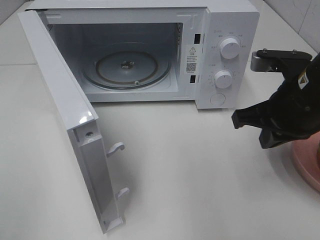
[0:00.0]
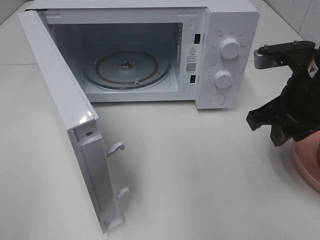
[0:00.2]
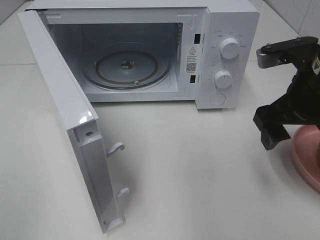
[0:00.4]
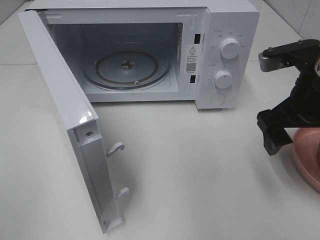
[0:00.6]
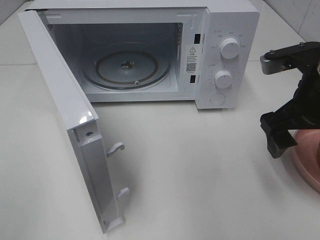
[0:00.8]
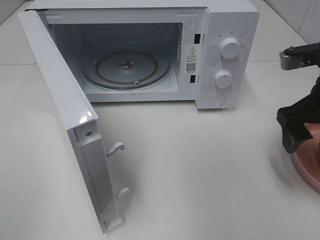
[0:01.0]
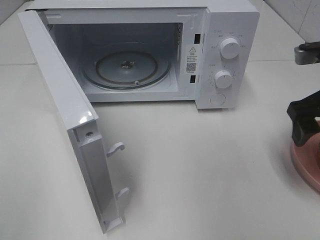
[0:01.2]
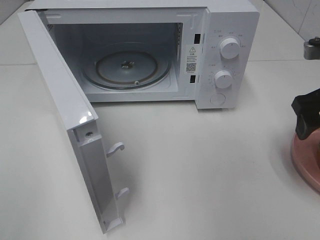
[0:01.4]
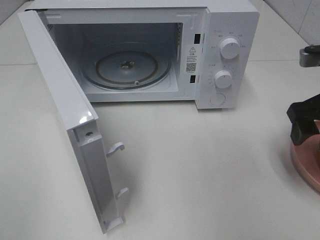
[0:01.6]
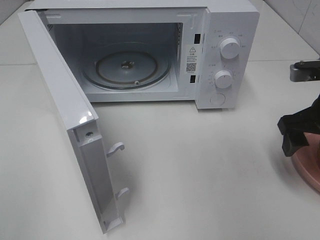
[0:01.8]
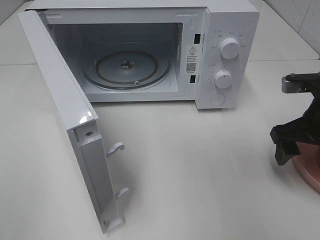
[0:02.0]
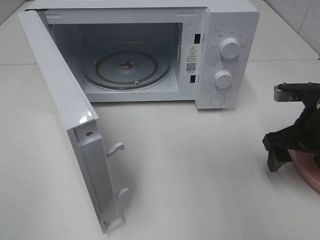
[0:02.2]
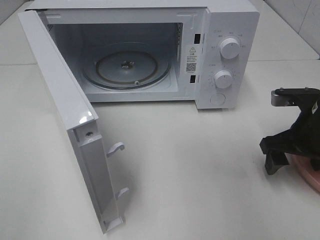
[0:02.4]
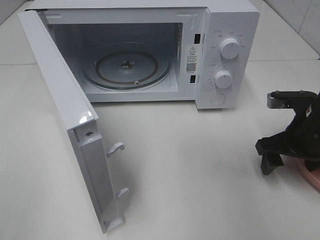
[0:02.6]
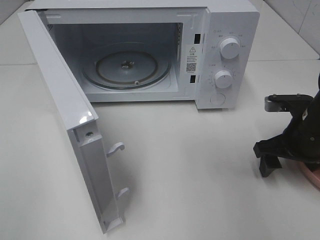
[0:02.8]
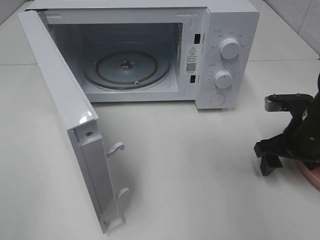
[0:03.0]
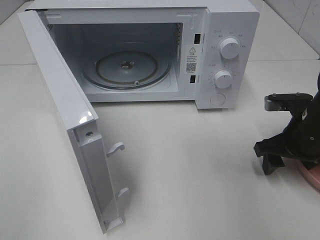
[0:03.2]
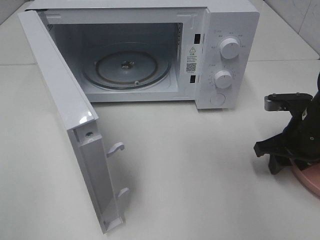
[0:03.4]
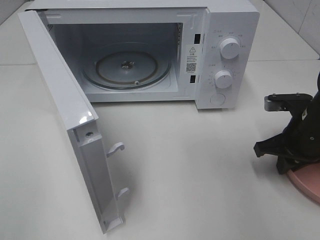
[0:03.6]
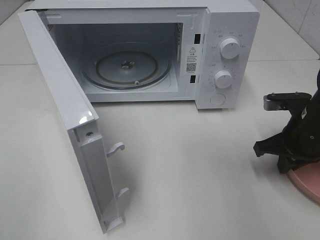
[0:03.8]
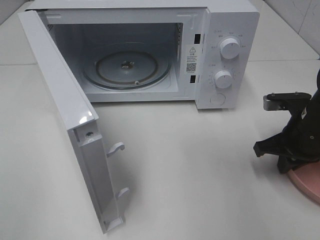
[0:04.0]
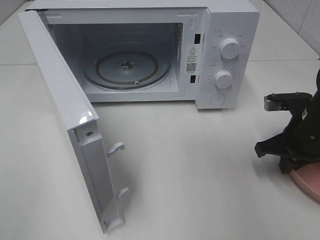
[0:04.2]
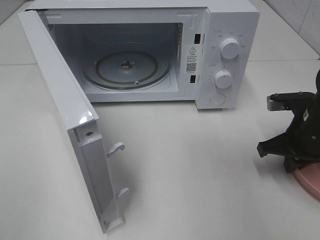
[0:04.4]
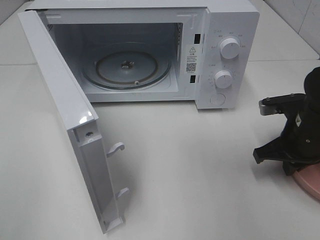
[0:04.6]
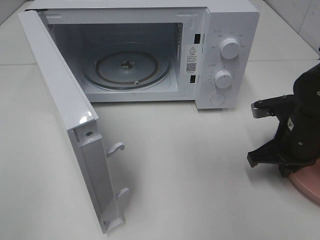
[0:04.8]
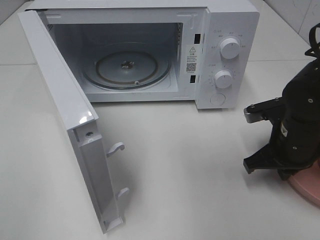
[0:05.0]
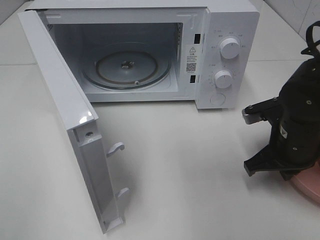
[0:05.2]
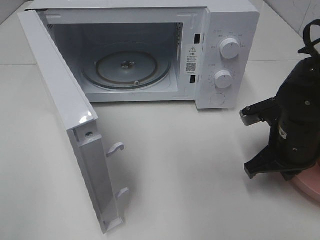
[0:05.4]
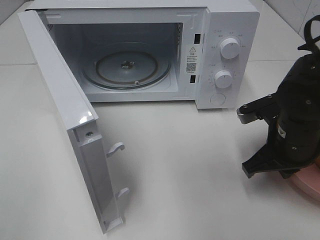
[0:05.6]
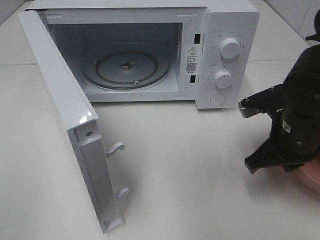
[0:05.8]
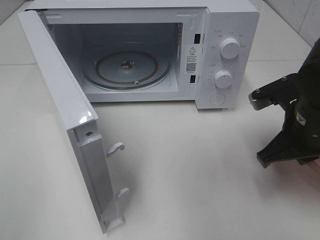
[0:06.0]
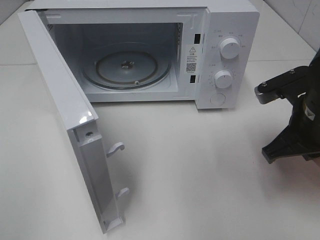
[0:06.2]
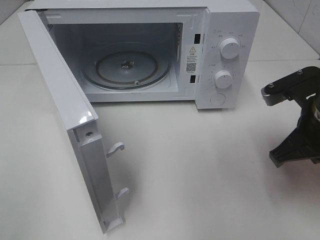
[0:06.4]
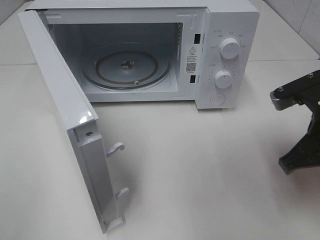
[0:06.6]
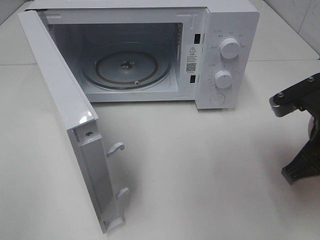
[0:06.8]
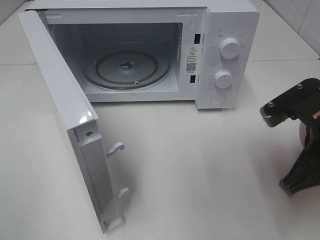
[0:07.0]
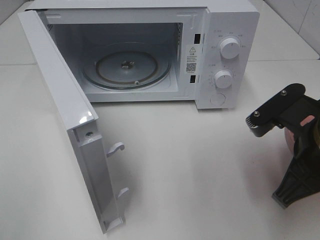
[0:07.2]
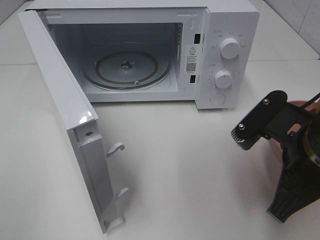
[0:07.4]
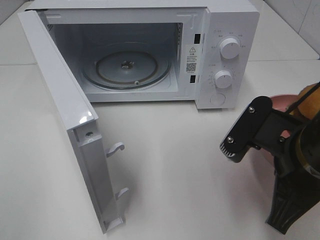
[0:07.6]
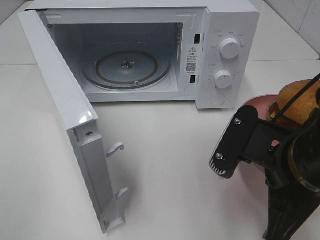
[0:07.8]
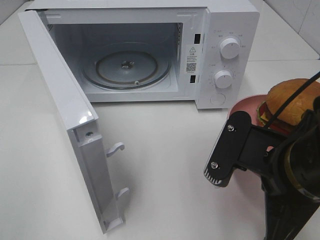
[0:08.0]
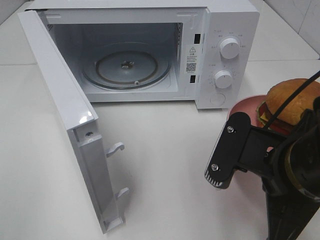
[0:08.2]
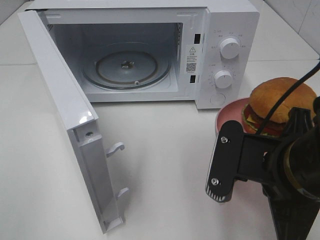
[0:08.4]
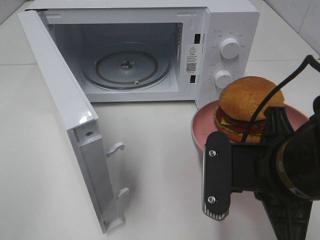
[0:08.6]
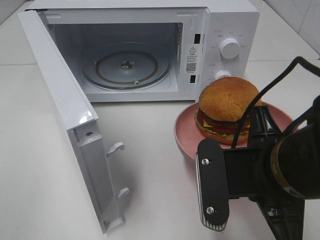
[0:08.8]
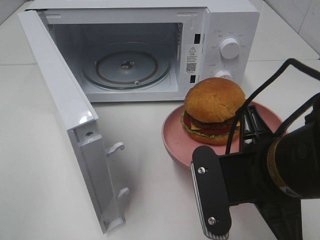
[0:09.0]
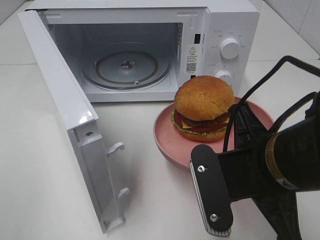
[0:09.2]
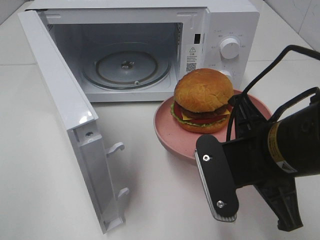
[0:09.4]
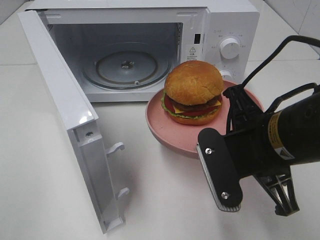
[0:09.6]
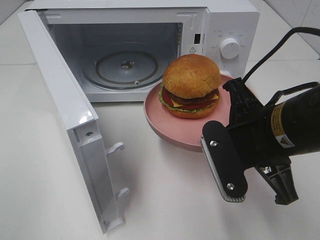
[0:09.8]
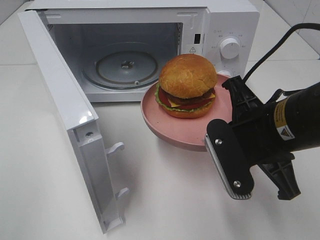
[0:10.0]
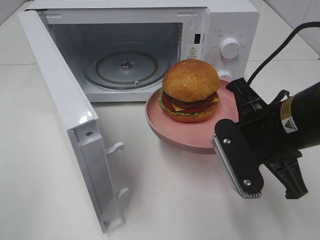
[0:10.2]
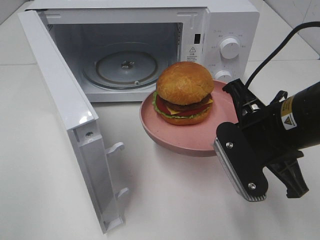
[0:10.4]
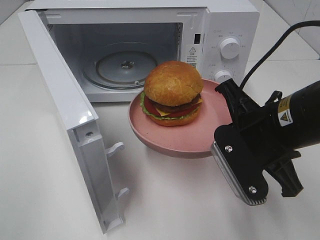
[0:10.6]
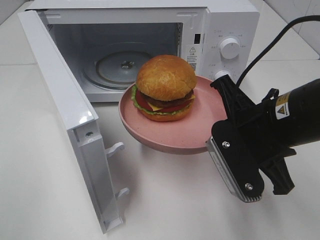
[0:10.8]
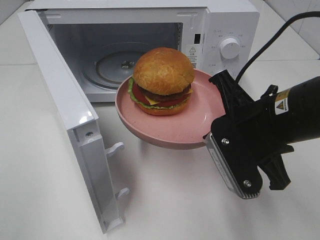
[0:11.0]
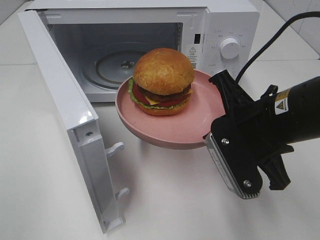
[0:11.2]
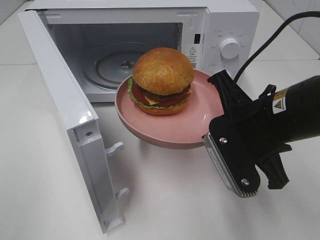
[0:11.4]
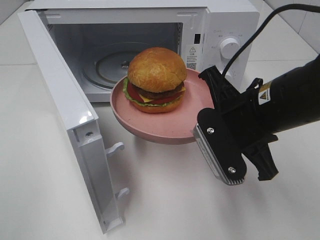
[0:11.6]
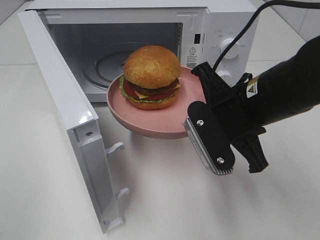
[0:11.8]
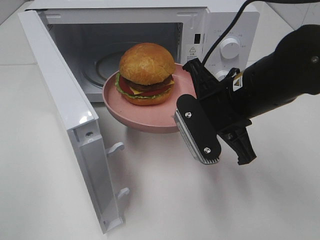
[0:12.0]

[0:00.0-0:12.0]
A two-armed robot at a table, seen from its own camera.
Task of the whole recording: Heat the burger.
Step, 0:00.0 to 0:03.8: Right hand: grab the plate with the hamburger.
0:00.0 to 0:01.6: The right gripper shifts some 10 cm to the right, and opens up.
0:01.6 to 0:03.0: The right gripper goes roughly 10 cm downward.
0:03.0 to 0:04.4: The right gripper closes its fingers.
0:04.4 to 0:06.0: The right gripper moves upward and to the left, approximately 10 cm.
0:06.0 to 0:07.6: The right gripper heads backward and to the left, covering some 10 cm.
0:09.0 to 0:10.4: The right gripper heads forward, covering some 5 cm.
0:10.4 to 0:12.0: The right gripper ends up approximately 5 cm from where it was.

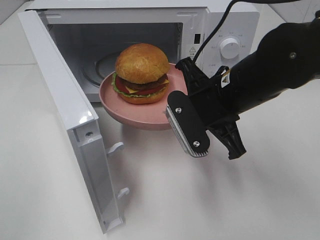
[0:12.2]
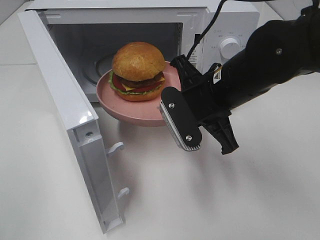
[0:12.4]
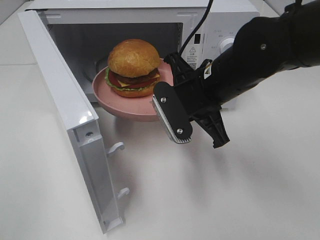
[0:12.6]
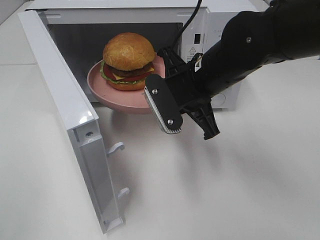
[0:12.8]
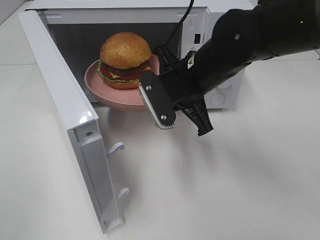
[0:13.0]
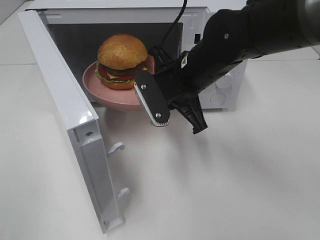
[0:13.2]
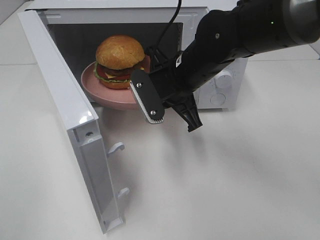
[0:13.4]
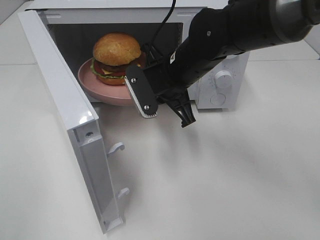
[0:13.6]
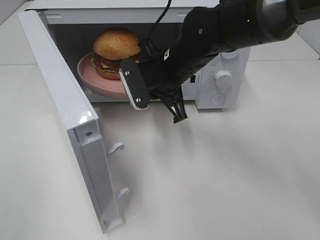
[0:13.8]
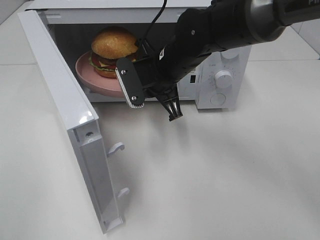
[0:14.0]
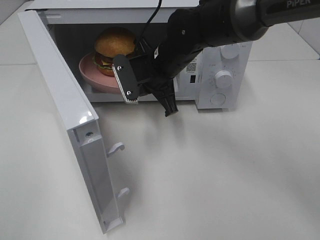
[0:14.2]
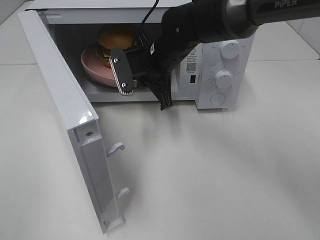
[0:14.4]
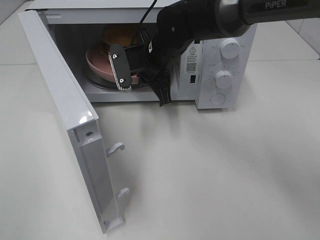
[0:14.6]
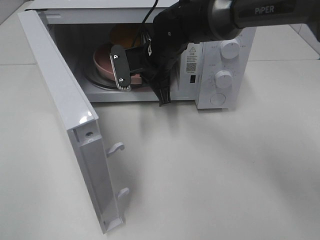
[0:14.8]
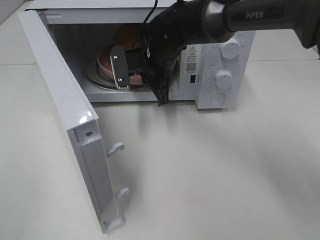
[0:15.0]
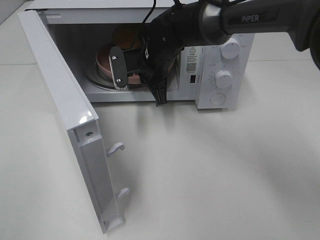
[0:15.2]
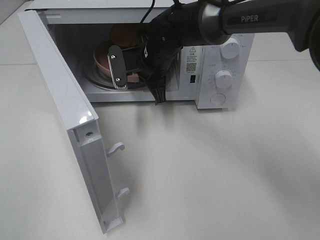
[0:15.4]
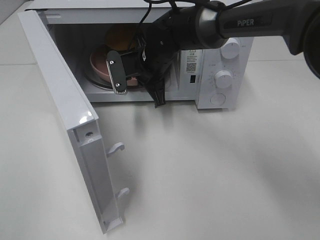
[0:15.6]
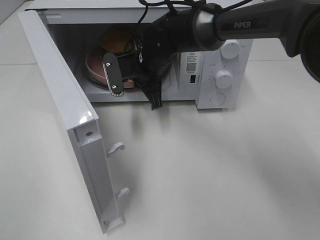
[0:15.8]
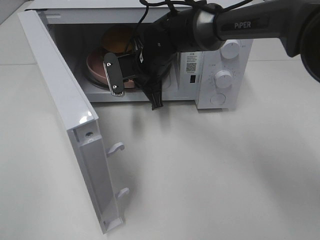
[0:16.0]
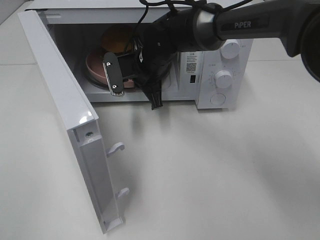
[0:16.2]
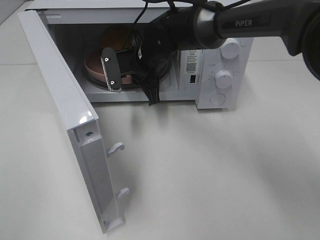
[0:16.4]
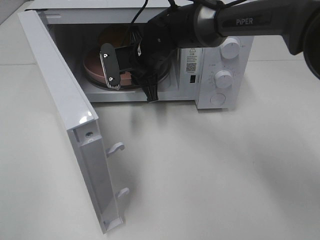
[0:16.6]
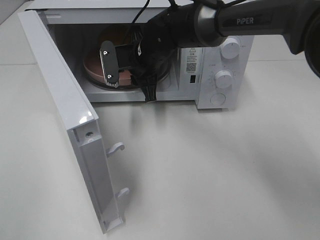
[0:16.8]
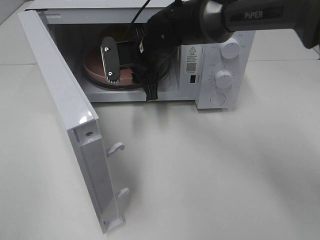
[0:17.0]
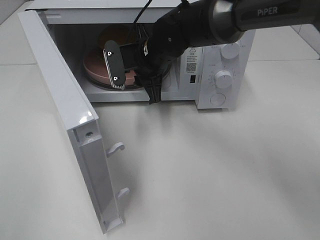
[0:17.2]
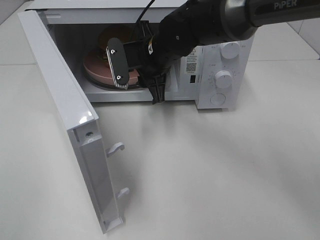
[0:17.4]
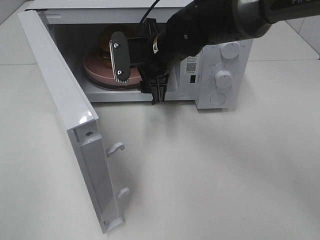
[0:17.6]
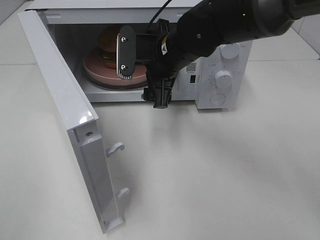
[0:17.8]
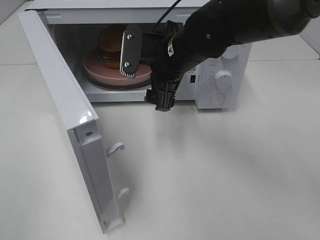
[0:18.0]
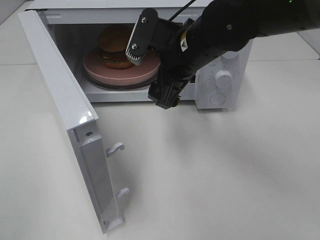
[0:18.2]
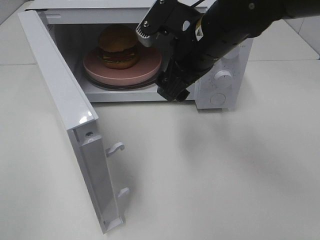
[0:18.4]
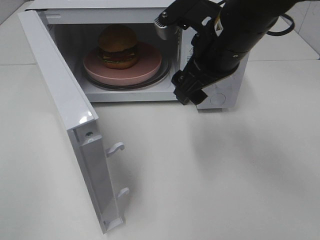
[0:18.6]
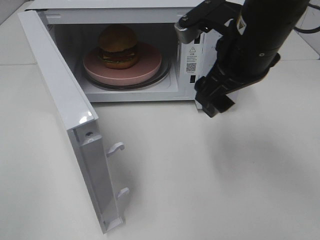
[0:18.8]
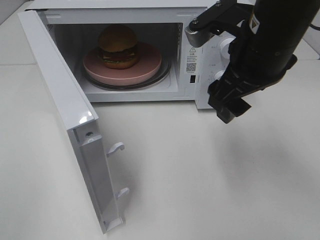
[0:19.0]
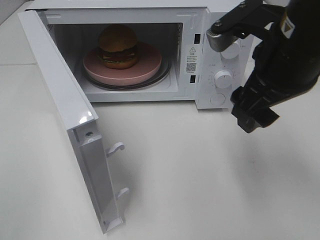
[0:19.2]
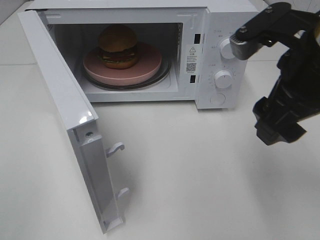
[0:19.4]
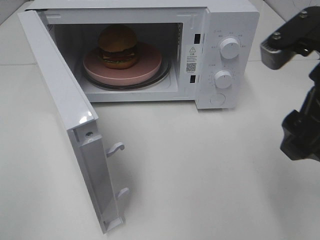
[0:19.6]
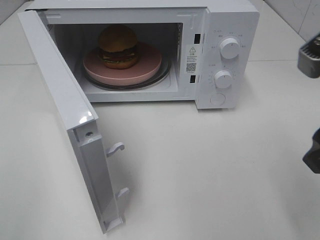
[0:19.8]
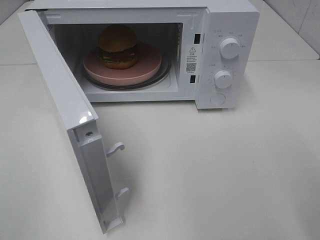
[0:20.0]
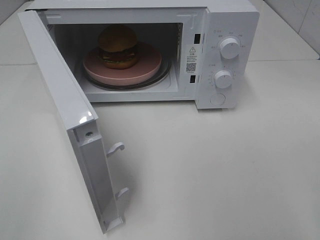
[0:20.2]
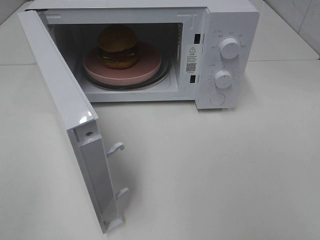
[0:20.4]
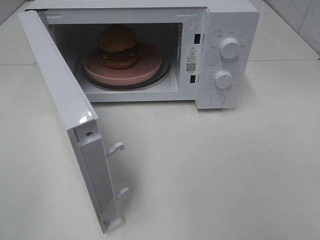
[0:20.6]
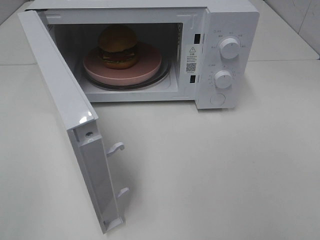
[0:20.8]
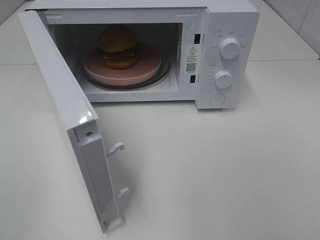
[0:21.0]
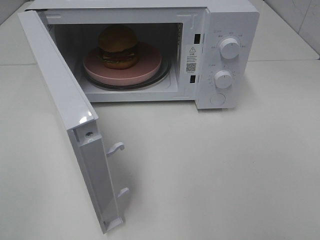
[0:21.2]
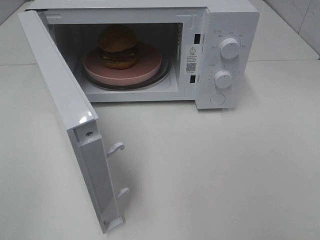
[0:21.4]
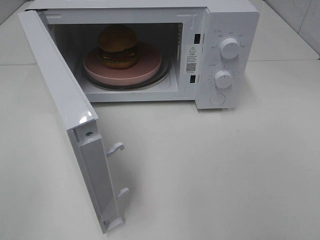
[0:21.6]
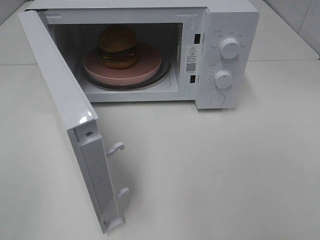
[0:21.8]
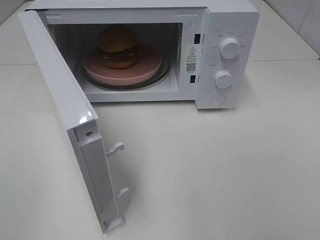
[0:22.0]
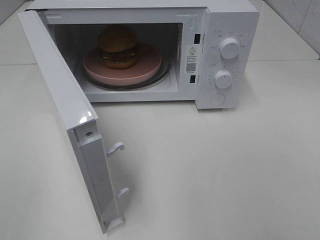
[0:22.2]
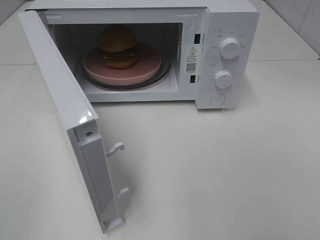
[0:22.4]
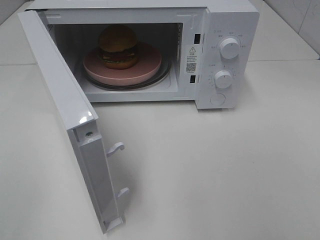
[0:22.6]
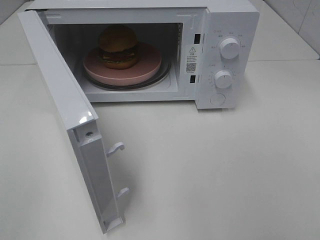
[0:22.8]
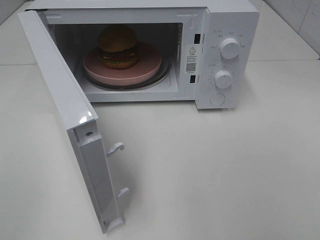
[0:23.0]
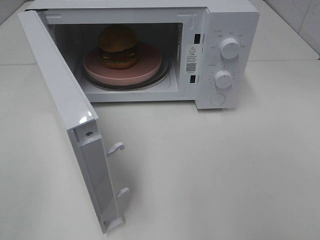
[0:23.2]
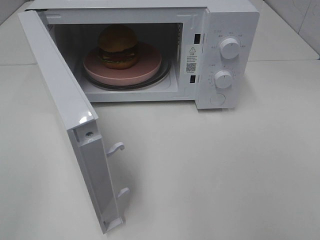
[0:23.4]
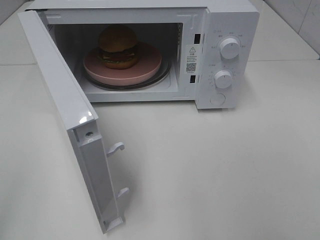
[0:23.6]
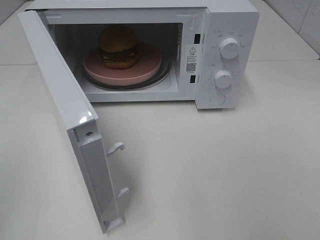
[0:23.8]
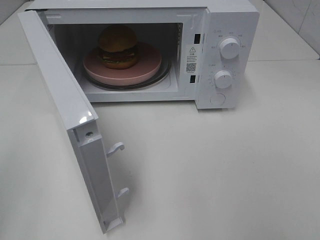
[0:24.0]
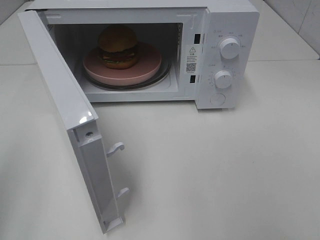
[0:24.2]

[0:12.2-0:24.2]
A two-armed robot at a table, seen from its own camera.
Task of the whole recording: Heat the burger.
Step, 0:12.2 to 0:16.4: Right hand: place the plate in the microwave.
0:12.2 to 0:13.8: The right gripper goes approximately 10 cm forward and to the left.
0:13.8 to 0:15.2: The right gripper travels forward by some 5 cm.
0:15.2 to 0:16.6: The grippers make only small movements.
0:16.6 to 0:18.2: The right gripper travels backward, to the right and upward by roughly 15 cm, and opens.
0:18.2 to 0:19.8: The right gripper shifts some 25 cm backward and to the right.
0:19.8 to 0:21.2: The right gripper travels backward and to the right by approximately 15 cm.
0:21.2 to 0:22.6: The two grippers keep their place.
